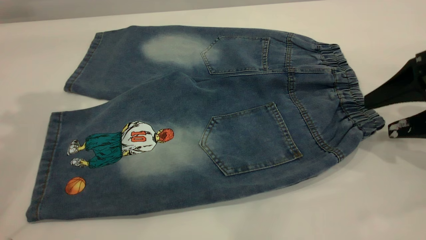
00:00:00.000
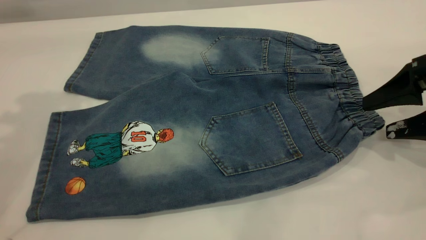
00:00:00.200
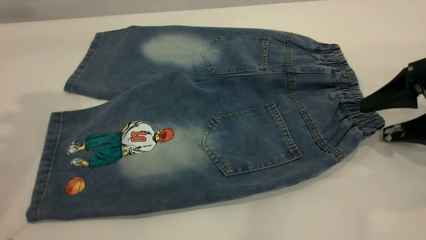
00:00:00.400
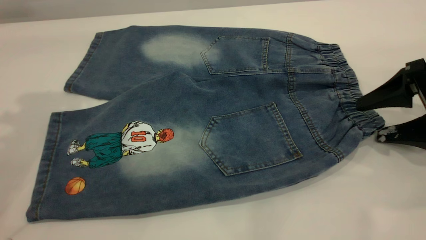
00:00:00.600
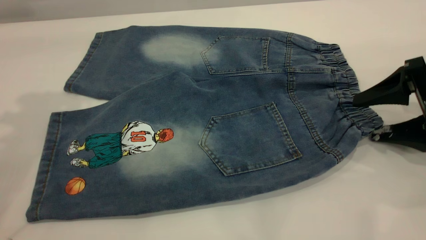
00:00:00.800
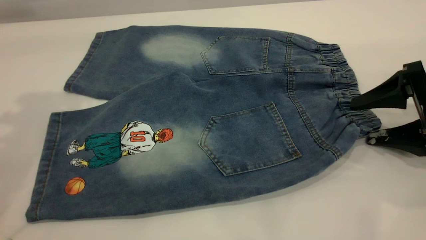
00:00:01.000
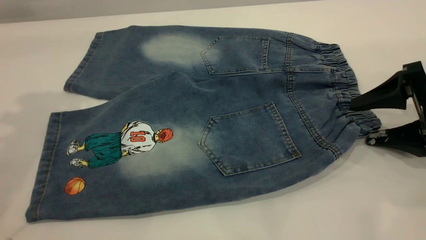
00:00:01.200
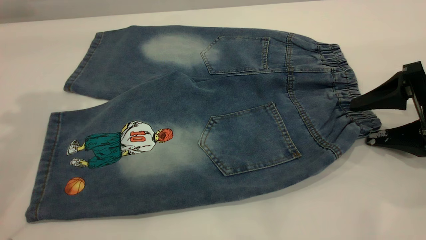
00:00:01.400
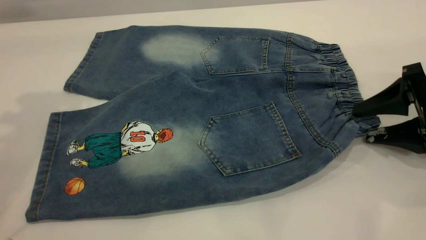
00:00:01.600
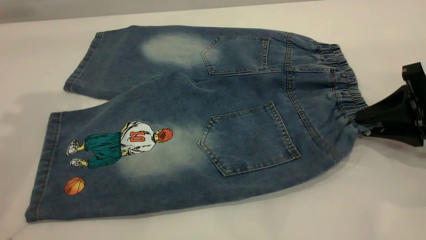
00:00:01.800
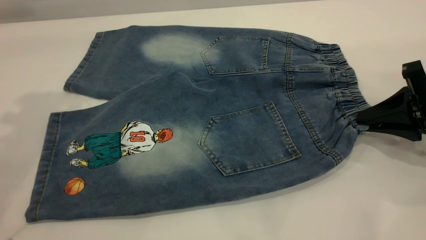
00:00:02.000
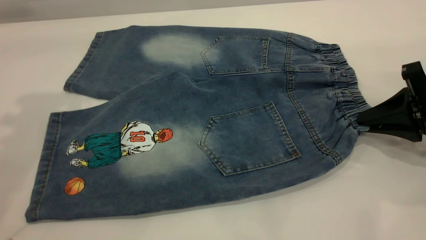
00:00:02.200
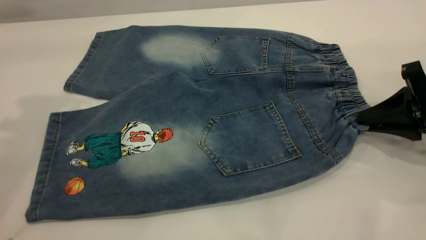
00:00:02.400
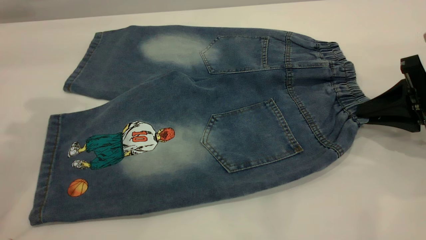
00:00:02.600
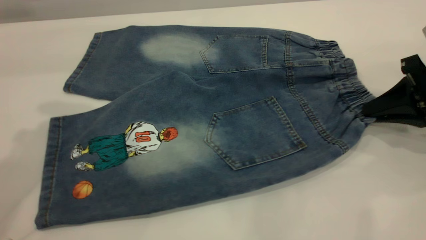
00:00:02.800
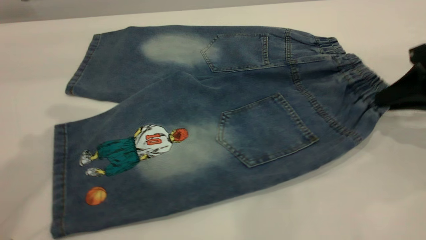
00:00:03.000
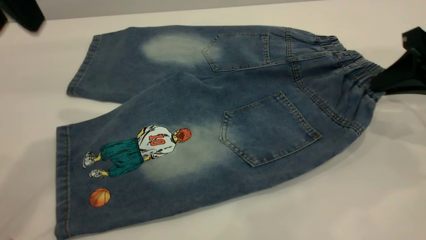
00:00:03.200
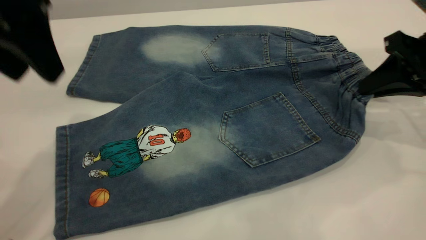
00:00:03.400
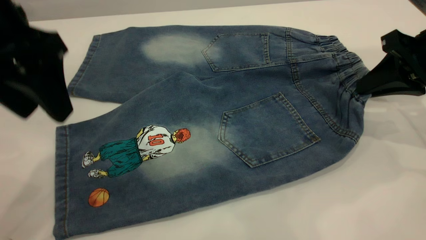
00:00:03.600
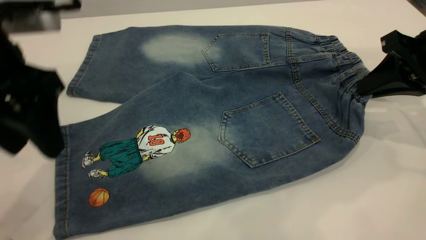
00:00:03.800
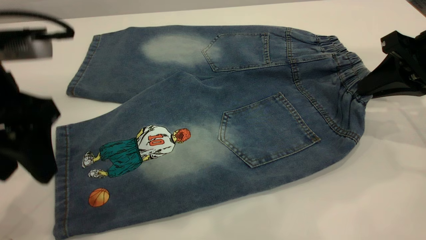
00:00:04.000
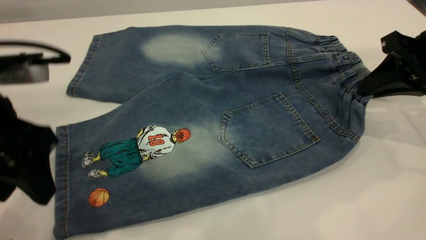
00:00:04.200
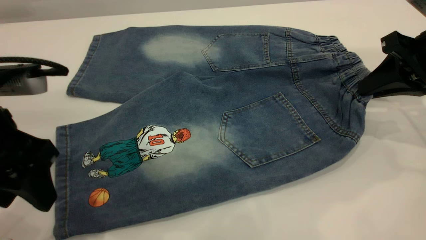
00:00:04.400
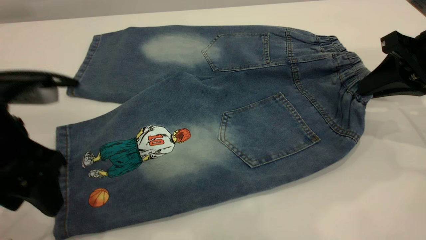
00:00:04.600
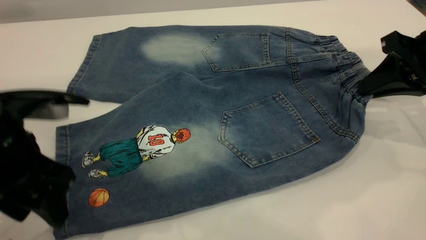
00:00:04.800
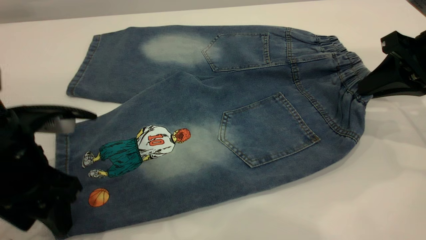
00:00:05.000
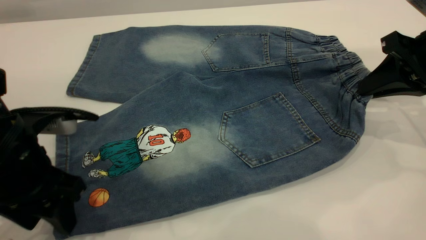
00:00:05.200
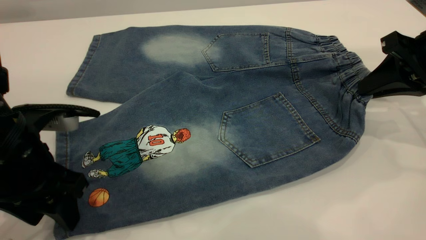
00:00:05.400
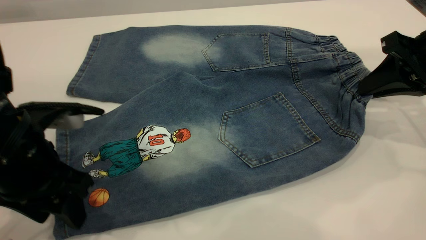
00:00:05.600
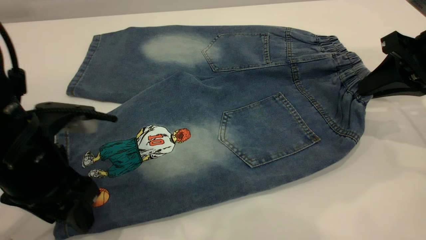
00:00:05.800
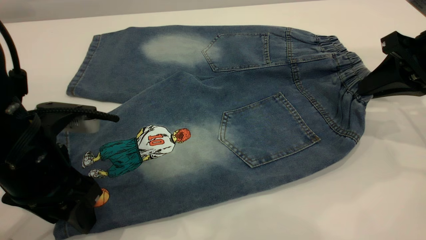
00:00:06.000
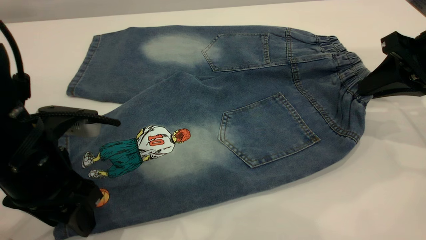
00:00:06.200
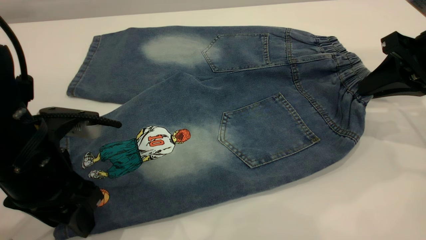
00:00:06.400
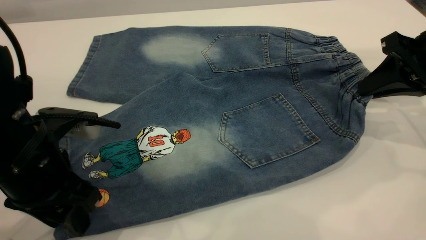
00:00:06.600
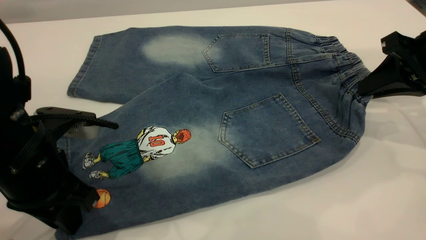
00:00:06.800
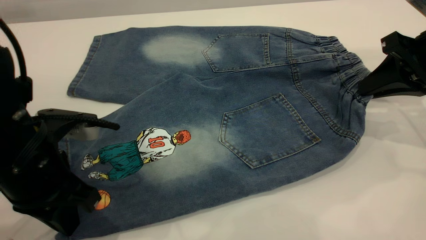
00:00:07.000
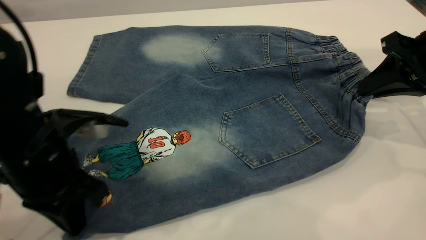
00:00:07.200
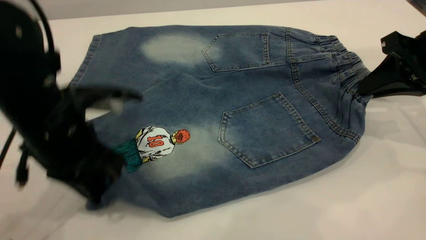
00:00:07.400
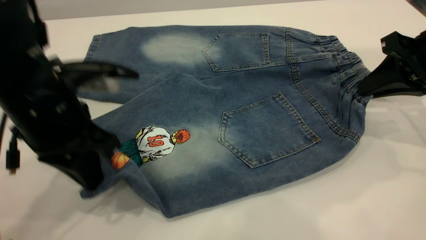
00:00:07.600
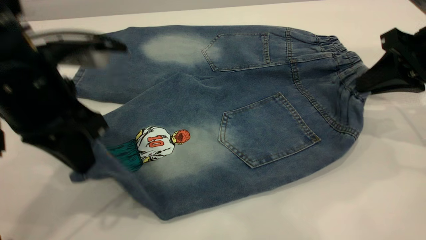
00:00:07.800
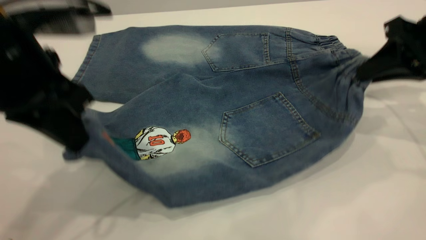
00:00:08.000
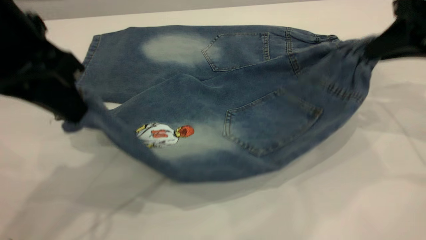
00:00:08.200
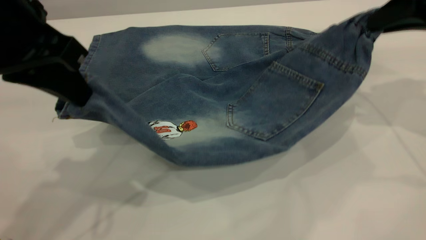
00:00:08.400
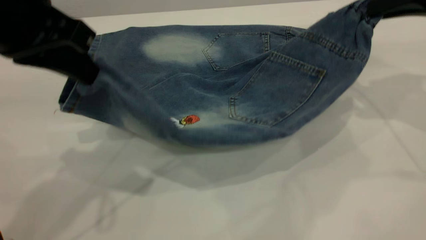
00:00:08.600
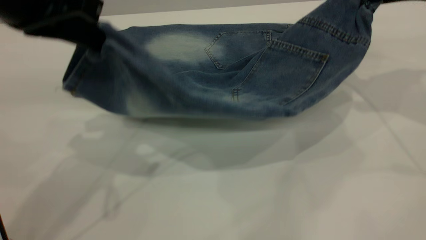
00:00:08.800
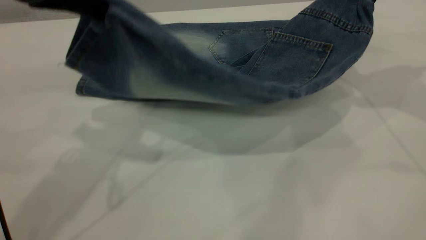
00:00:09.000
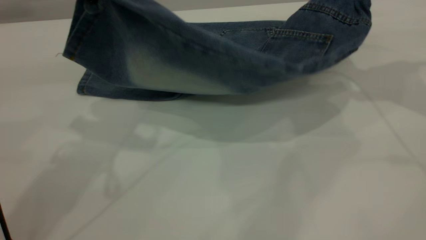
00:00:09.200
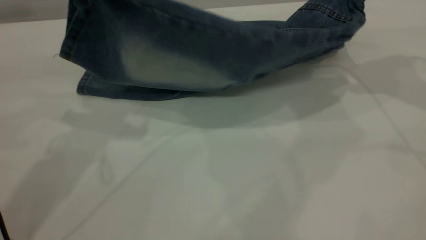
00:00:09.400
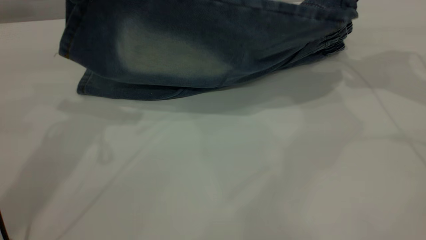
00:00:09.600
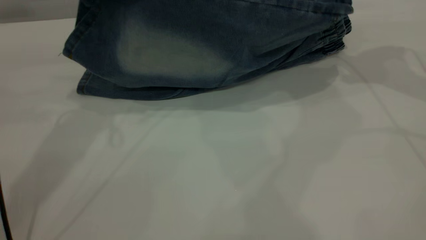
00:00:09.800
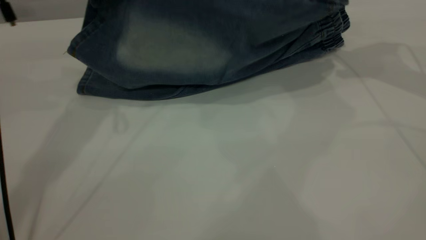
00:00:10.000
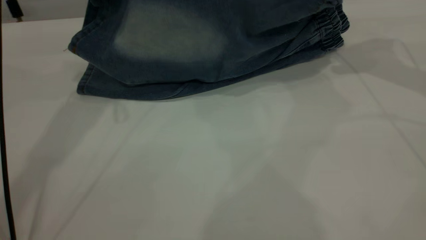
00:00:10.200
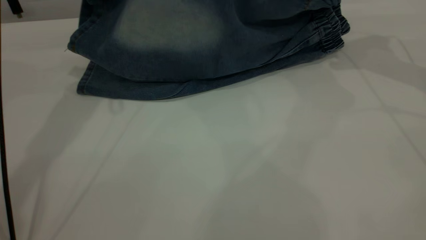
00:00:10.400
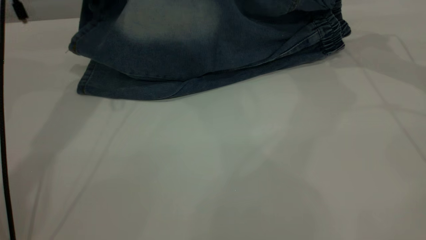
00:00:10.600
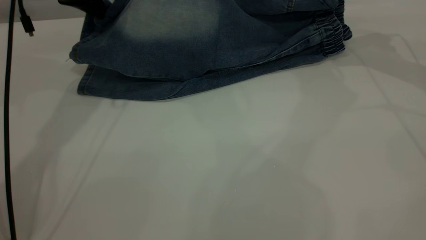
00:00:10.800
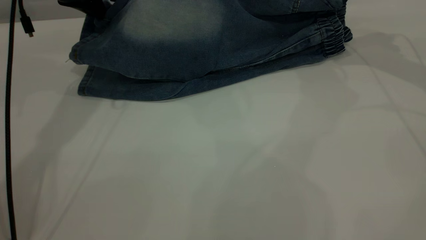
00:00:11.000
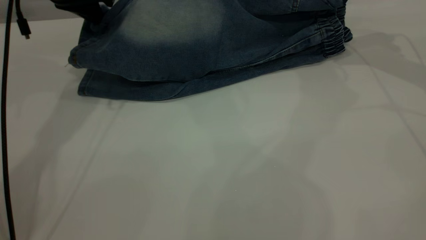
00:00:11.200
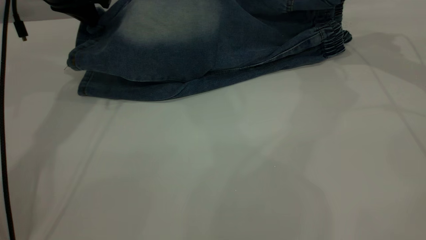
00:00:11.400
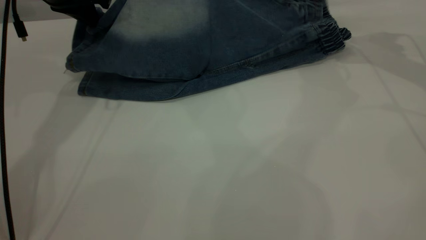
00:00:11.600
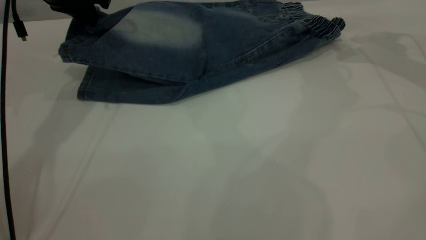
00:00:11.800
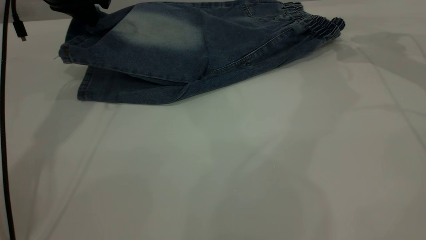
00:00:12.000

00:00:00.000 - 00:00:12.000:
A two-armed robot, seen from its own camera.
00:00:00.000 - 00:00:01.600: The right gripper closes.
00:00:01.600 - 00:00:03.000: The left gripper changes place by some 5 cm. Meanwhile the right gripper ends up some 5 cm from where it was, and closes.
00:00:03.000 - 00:00:04.400: The left gripper shifts roughly 15 cm downward and backward.
00:00:04.400 - 00:00:06.000: The left gripper moves downward, about 5 cm.
00:00:06.000 - 00:00:07.600: The left gripper changes place by about 5 cm, and closes its fingers.
00:00:07.600 - 00:00:09.000: Both grippers travel together upward, roughly 10 cm.
00:00:09.000 - 00:00:10.400: The left gripper shifts some 15 cm forward; the right gripper shifts about 10 cm forward.
00:00:10.400 - 00:00:12.000: The right gripper opens up.

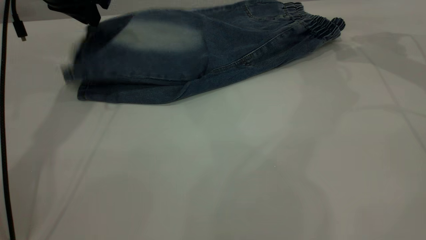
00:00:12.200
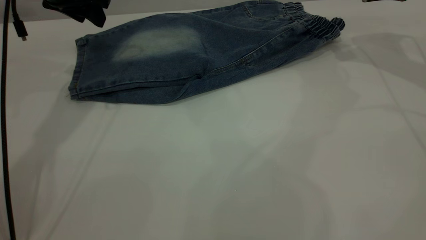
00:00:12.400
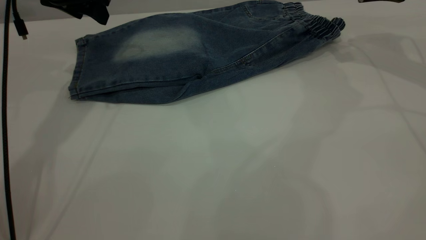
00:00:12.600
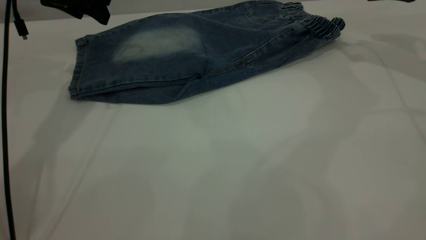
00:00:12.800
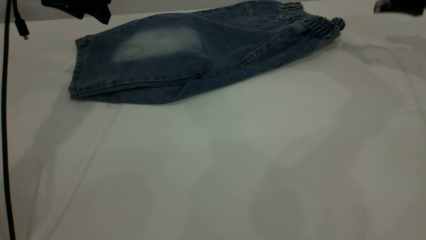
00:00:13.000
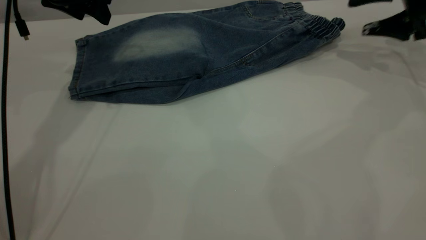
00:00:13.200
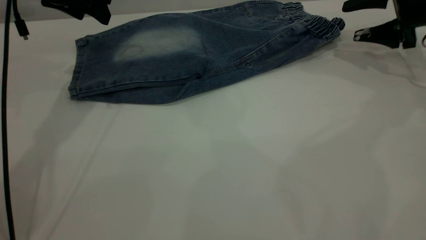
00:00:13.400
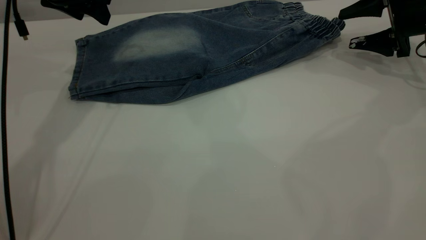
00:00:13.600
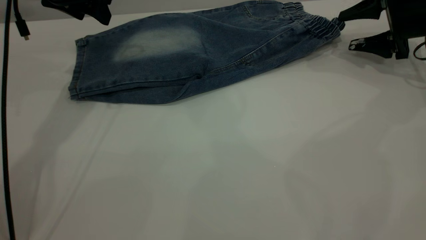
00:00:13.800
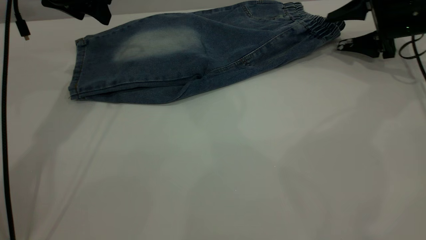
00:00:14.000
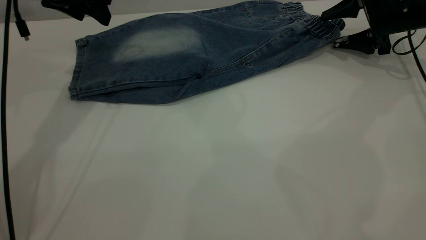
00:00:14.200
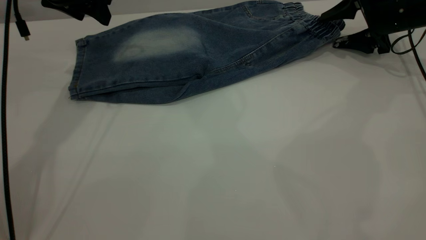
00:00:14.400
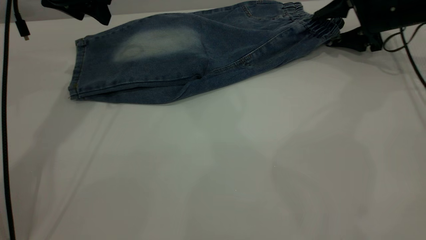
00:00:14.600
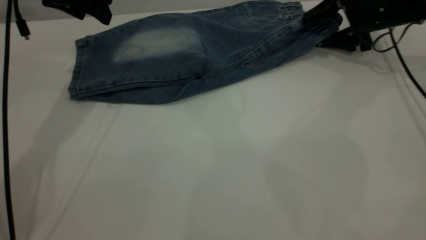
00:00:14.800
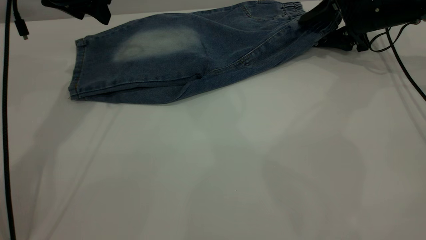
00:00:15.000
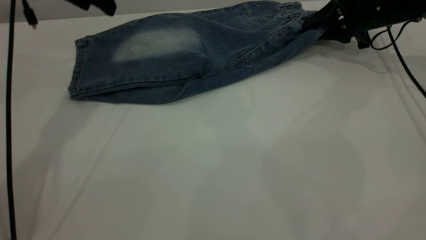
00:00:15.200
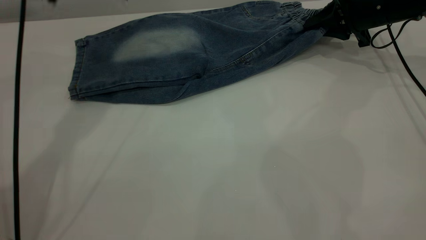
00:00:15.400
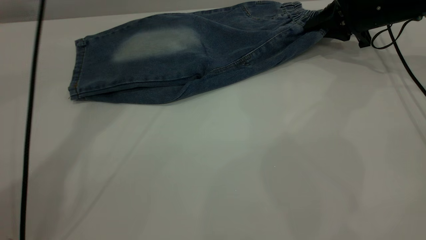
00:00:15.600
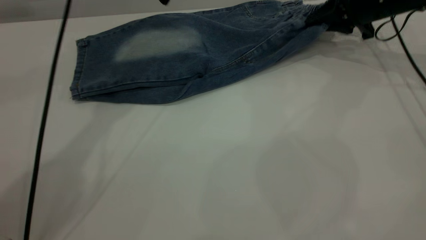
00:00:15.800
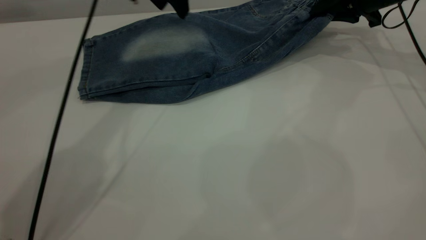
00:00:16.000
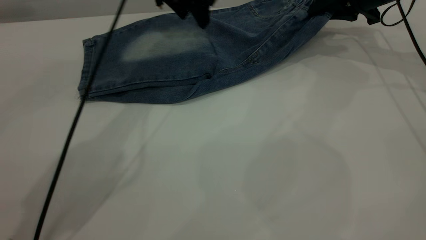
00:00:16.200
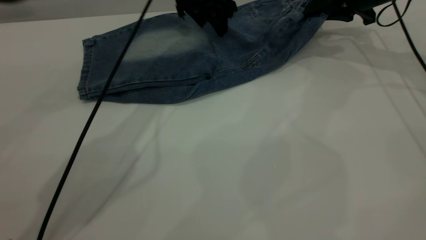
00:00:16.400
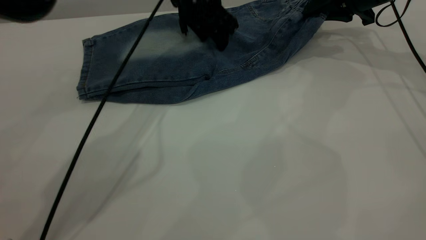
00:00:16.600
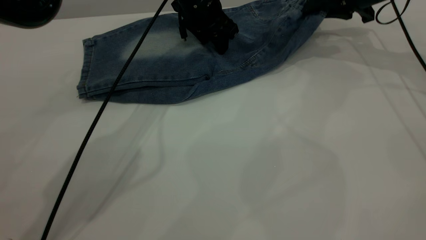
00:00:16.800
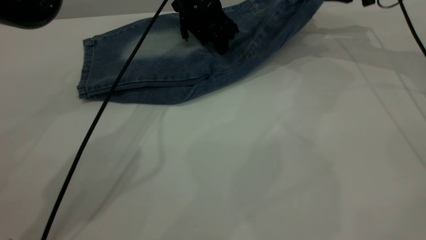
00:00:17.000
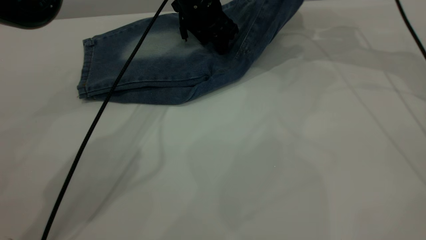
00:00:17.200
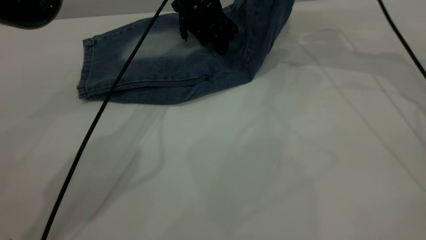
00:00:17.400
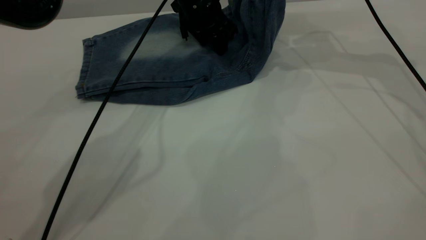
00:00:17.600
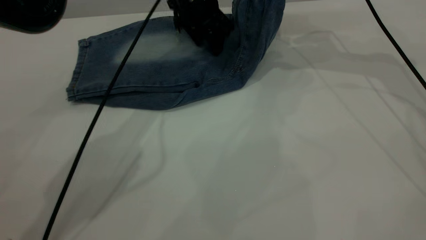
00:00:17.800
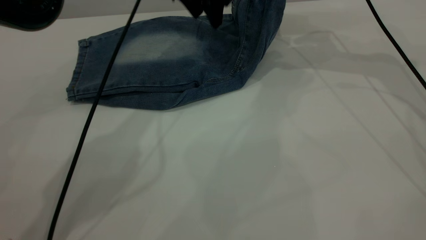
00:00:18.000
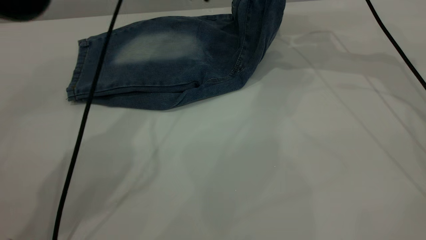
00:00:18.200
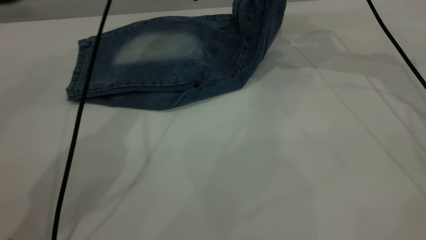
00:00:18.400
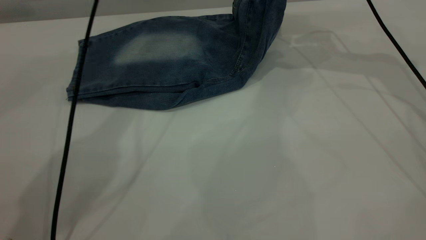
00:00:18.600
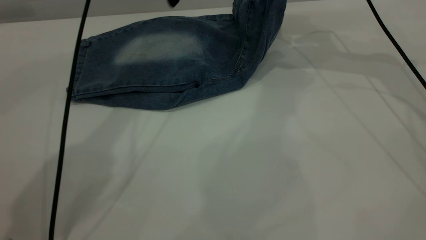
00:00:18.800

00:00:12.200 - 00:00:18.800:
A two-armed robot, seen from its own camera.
00:00:12.200 - 00:00:13.800: The left gripper opens its fingers; the right gripper is displaced downward by some 10 cm.
00:00:13.800 - 00:00:15.400: The left gripper shifts about 5 cm to the right, while the right gripper travels to the left by some 5 cm, and closes up.
00:00:15.400 - 00:00:17.200: The right gripper moves upward, some 10 cm, while the left gripper is displaced downward, to the right and forward by some 20 cm.
00:00:17.200 - 00:00:18.800: The left gripper moves upward and to the left, approximately 15 cm.
